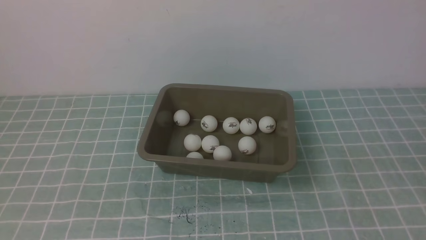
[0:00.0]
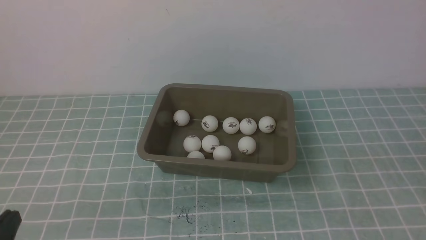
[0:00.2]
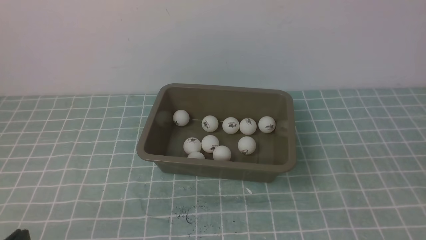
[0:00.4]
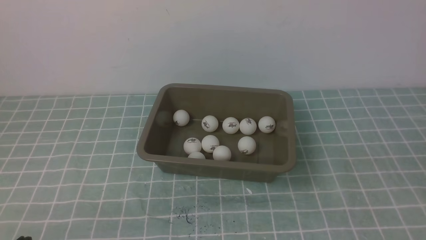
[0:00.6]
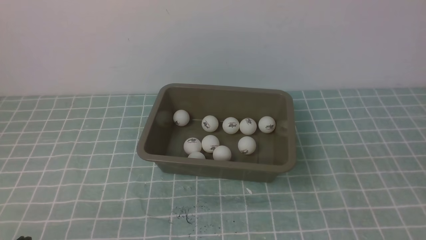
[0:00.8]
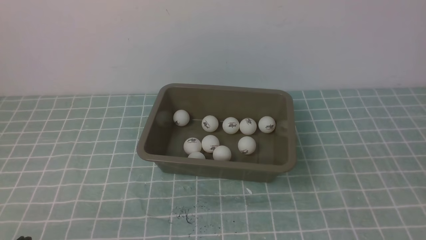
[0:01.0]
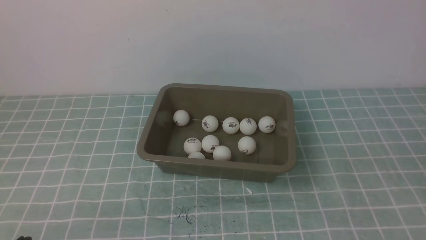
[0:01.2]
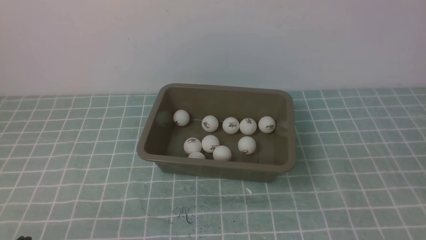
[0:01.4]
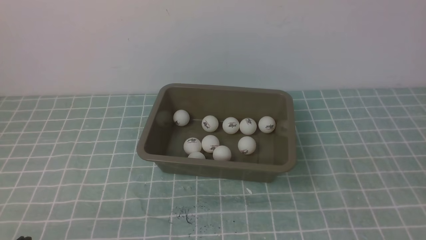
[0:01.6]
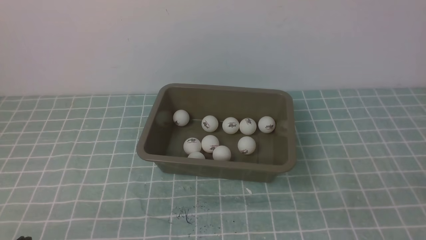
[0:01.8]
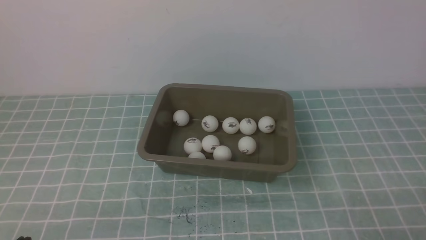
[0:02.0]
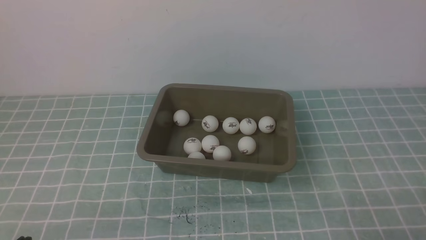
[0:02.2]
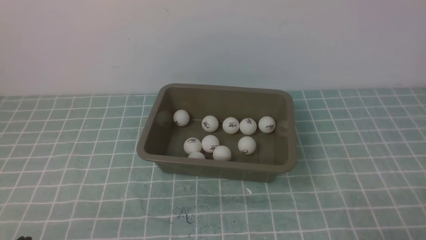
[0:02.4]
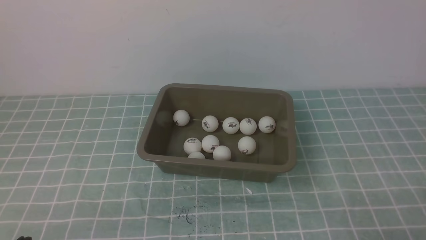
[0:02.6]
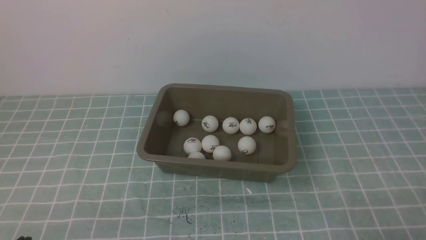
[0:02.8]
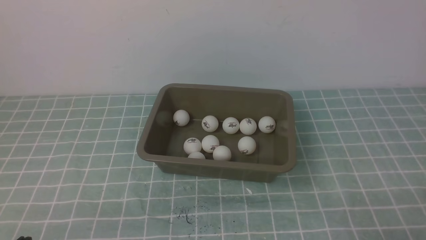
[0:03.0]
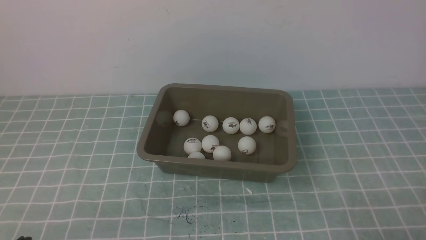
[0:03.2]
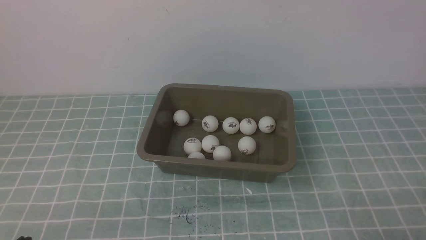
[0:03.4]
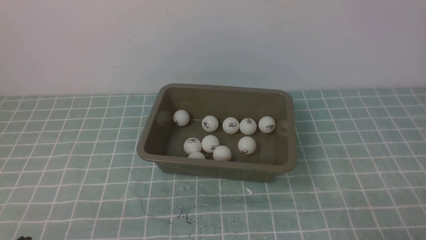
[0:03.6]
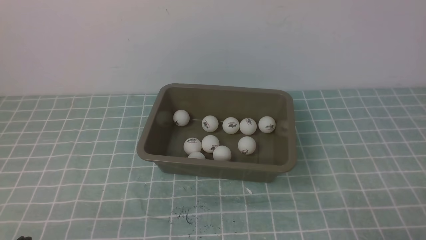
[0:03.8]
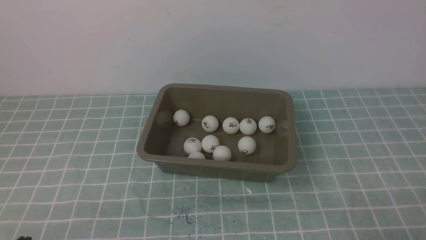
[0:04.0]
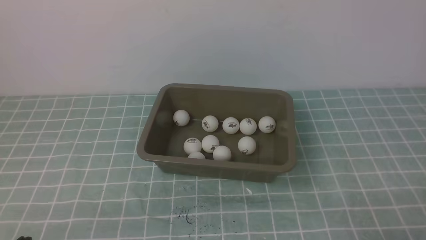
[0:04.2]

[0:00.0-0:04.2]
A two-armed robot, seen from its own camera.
0:02.8 to 0:04.2: The two grippers keep their place.

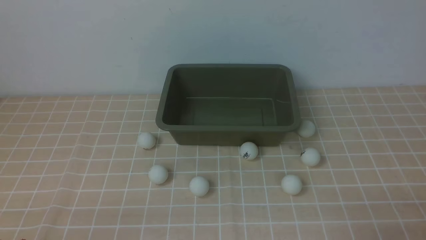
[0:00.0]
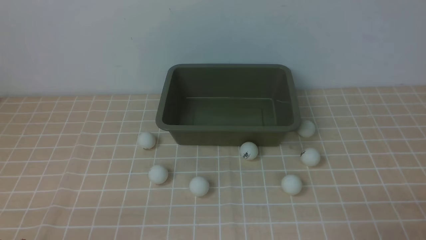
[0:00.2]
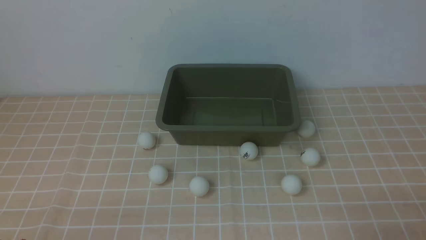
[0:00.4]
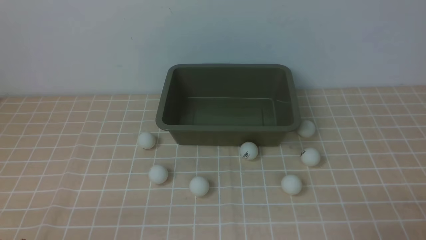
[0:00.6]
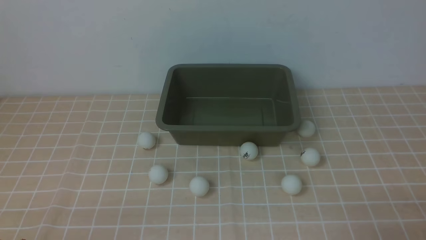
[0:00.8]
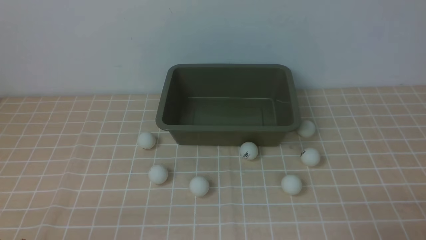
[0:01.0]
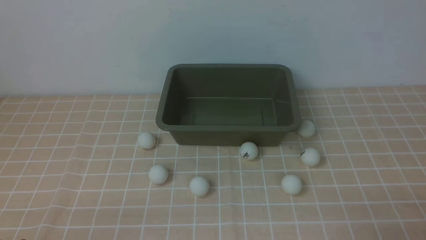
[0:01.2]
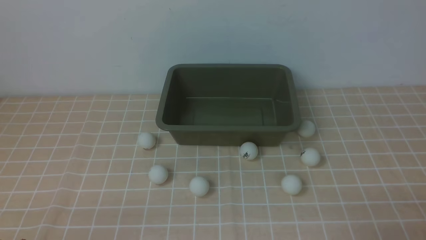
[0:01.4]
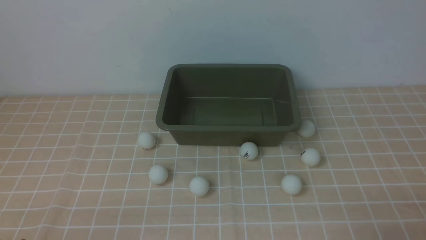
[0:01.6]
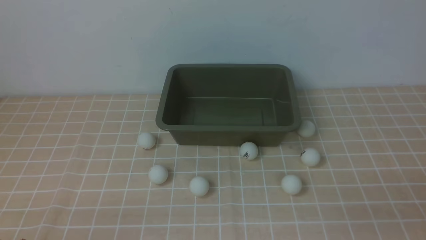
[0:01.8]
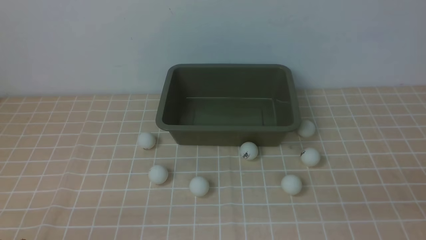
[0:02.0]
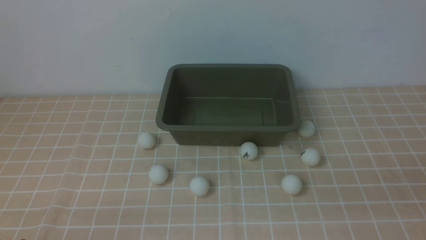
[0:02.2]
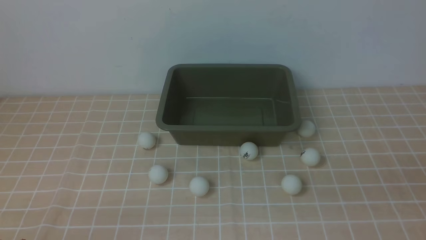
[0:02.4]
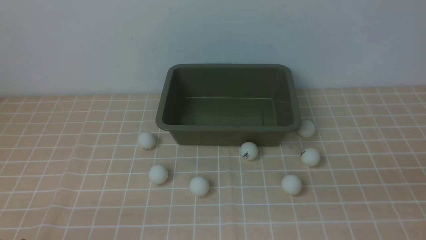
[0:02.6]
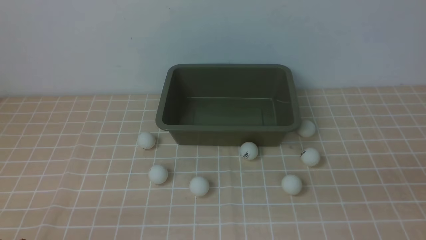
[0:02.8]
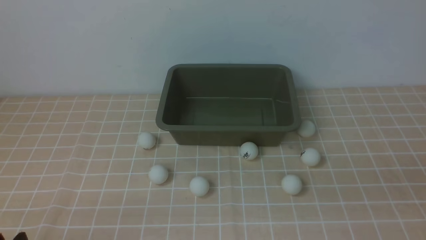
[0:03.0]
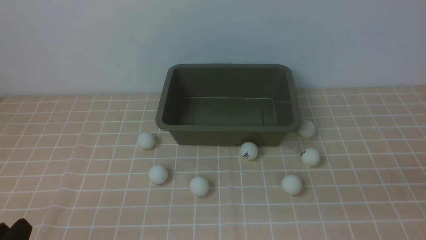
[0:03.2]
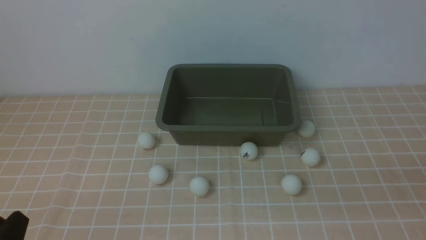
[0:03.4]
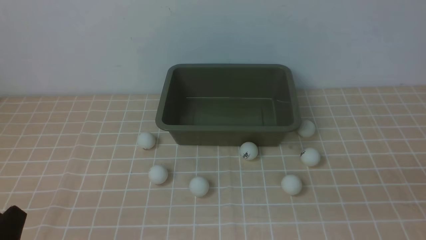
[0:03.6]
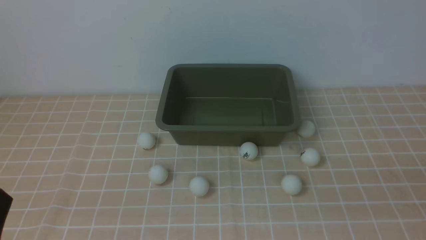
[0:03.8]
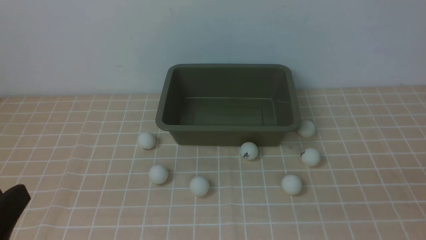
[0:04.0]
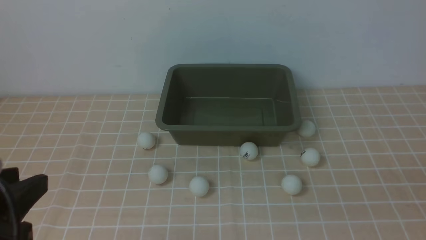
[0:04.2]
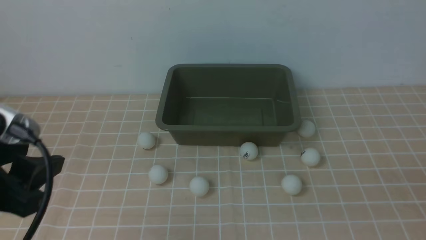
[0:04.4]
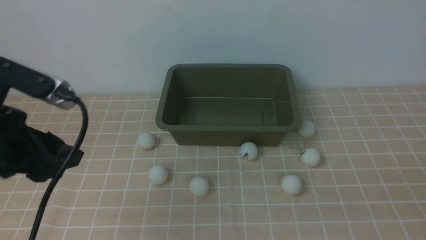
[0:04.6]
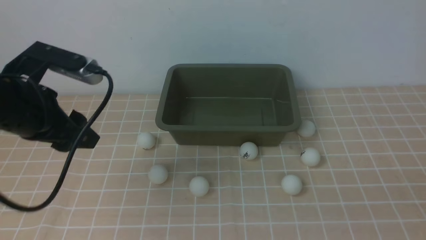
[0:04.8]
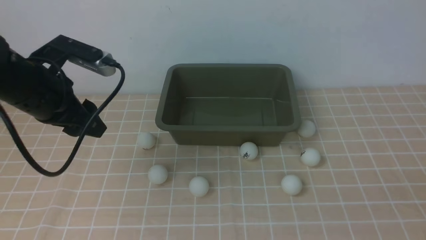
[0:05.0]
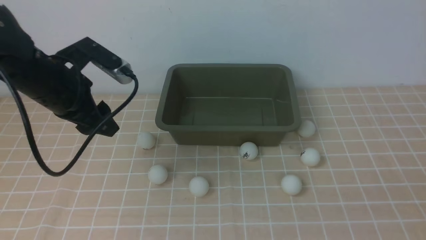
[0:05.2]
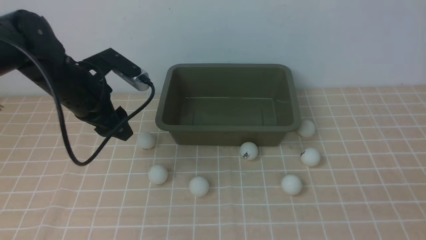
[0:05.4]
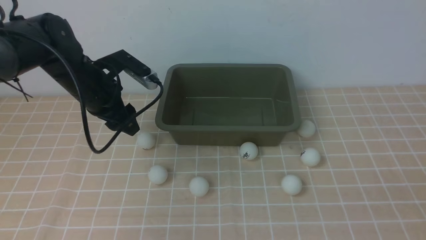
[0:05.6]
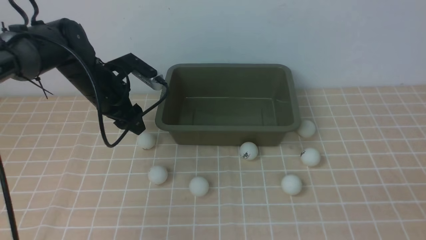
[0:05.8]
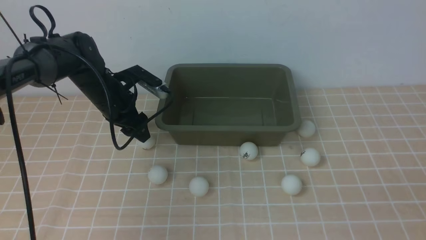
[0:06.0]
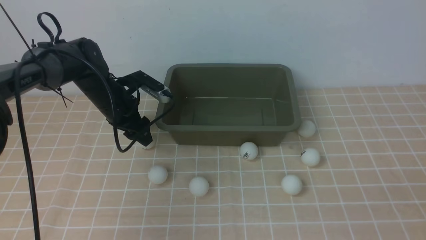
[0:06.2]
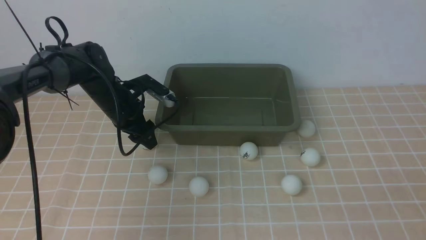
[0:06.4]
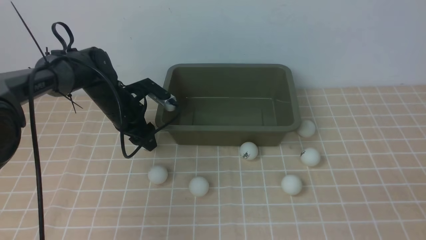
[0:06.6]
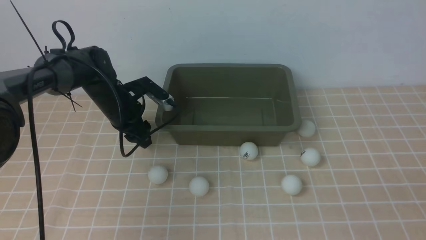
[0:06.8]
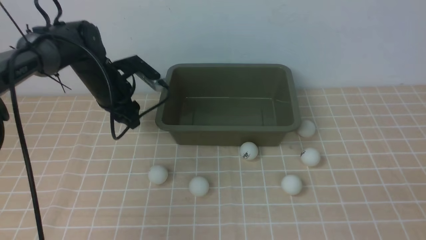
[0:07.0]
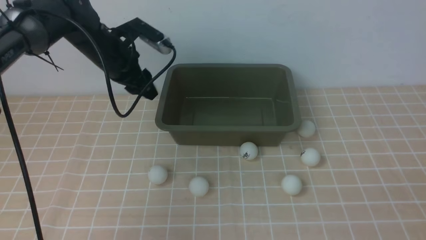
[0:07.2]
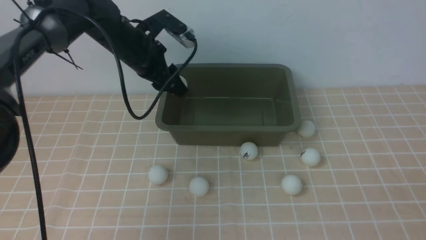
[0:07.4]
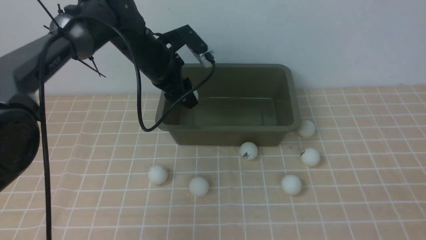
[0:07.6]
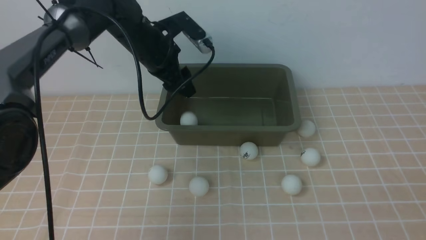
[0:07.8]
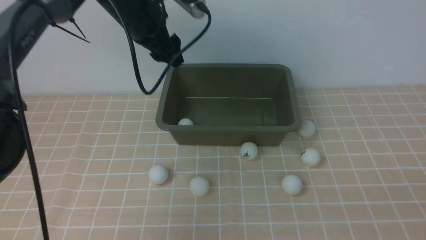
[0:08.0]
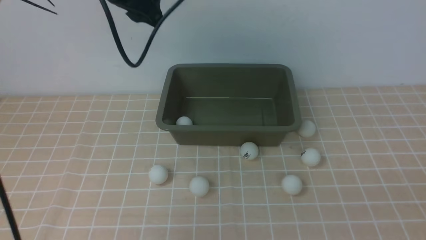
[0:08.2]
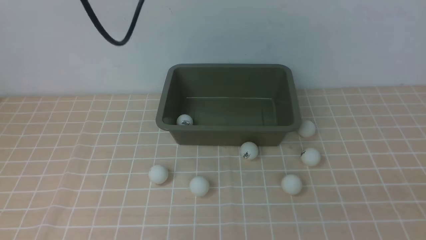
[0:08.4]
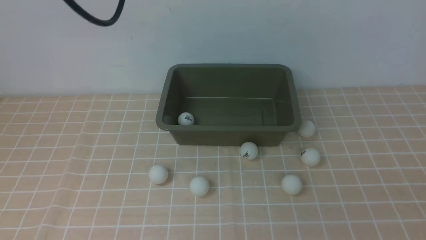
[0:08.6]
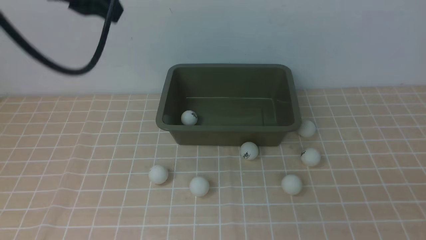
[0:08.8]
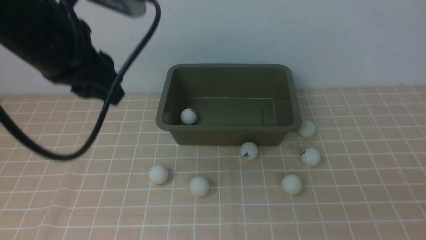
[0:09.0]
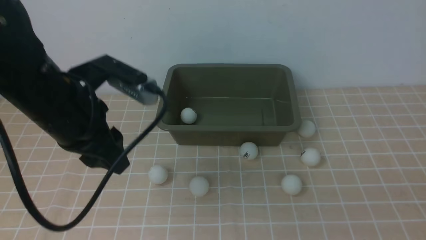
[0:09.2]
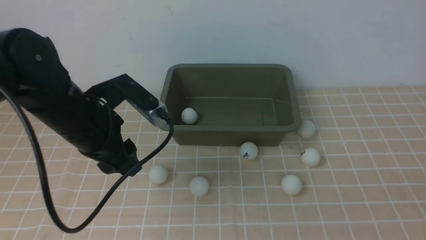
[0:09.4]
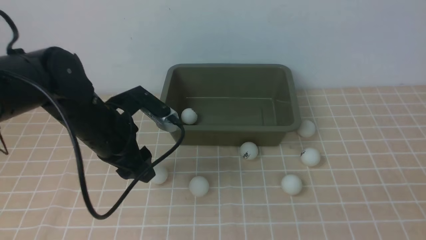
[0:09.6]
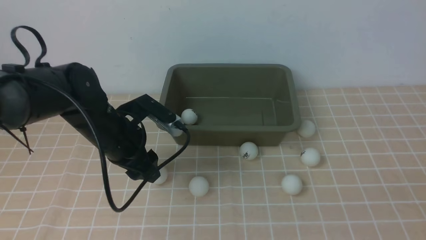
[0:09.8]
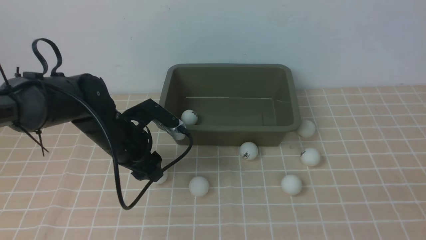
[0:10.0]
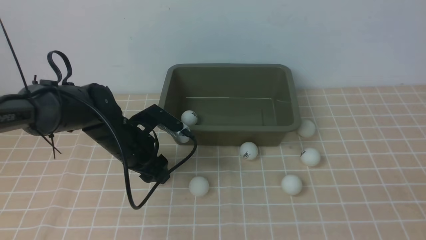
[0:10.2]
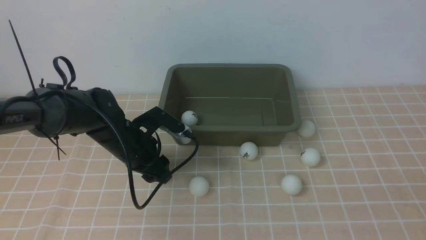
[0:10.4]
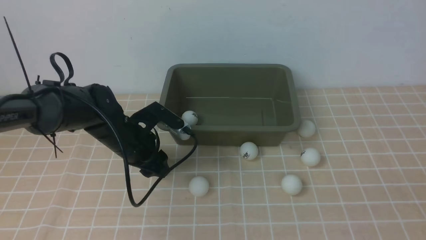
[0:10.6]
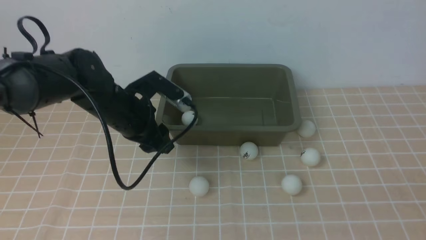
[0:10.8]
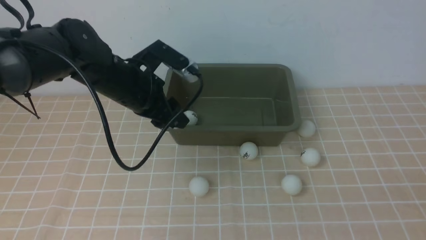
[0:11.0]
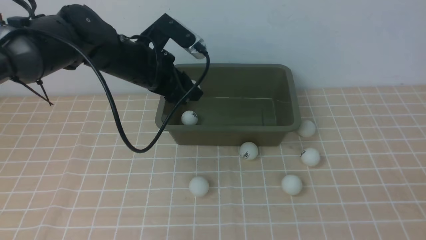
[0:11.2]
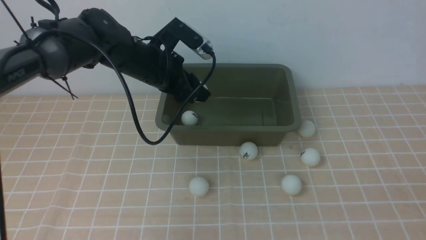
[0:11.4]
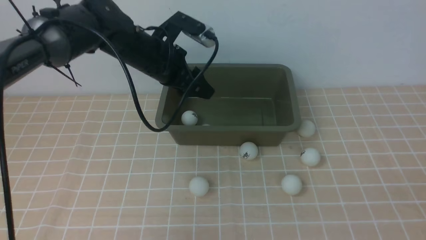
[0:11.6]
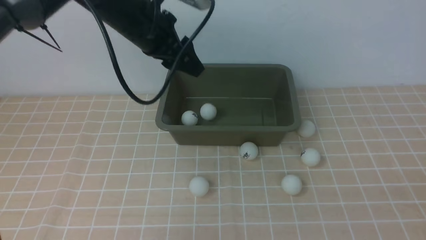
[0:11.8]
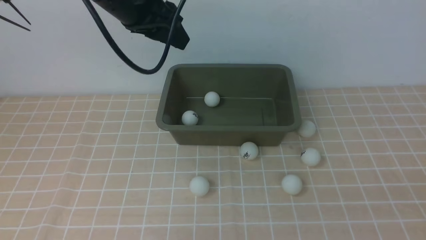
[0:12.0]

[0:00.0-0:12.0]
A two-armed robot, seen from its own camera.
Step, 0:00.0 to 0:07.0: use the left arm to clamp the table tennis ball closest to it.
Step, 0:07.2 to 0:08.4: use the left arm to put the table tennis ball into the box.
Step, 0:08.6 to 0:10.8: use the left arm to clamp the table tennis ball closest to it.
Step, 0:11.0 to 0:11.8: use the left arm to put the table tennis ball into the box.
0:03.0 to 0:04.4: The left gripper shifts approximately 20 cm upward and forward, and opens up.
0:04.4 to 0:06.0: The left gripper heads forward and downward, covering approximately 35 cm.
0:06.0 to 0:07.6: The left gripper goes approximately 10 cm to the right and upward.
0:07.6 to 0:09.0: The left gripper goes some 20 cm backward and upward, and closes its fingers.
0:09.0 to 0:10.4: The left gripper travels downward by about 20 cm, and opens up.
0:10.4 to 0:12.0: The left gripper heads upward, covering some 25 cm, and closes.
